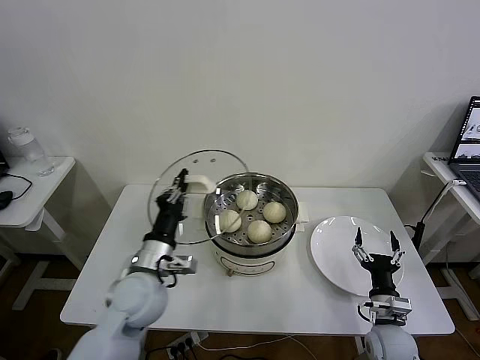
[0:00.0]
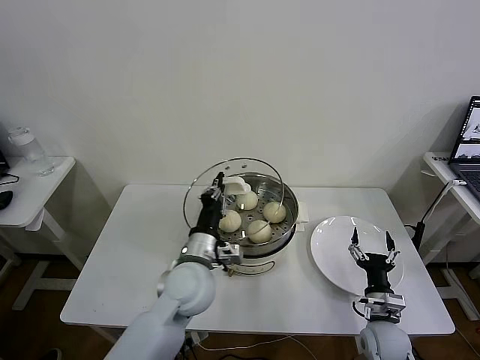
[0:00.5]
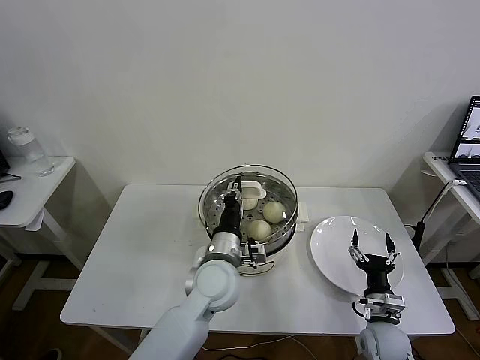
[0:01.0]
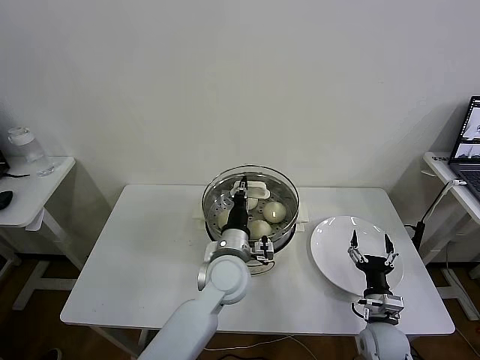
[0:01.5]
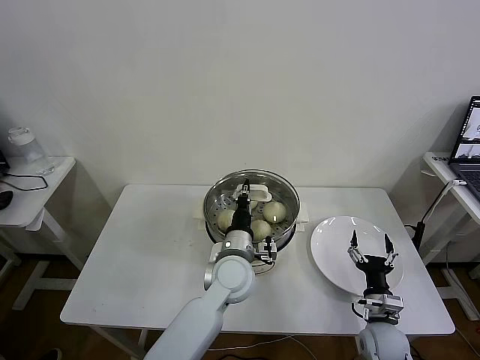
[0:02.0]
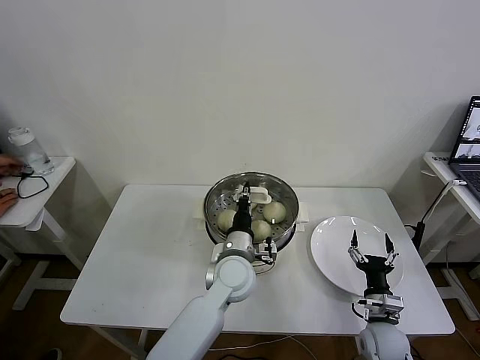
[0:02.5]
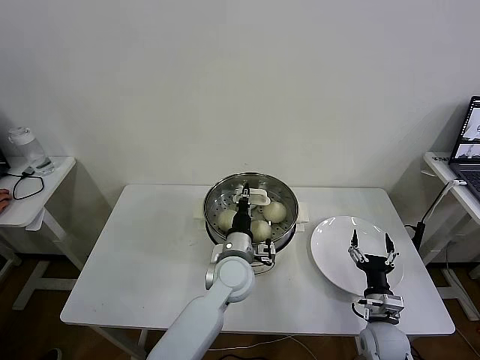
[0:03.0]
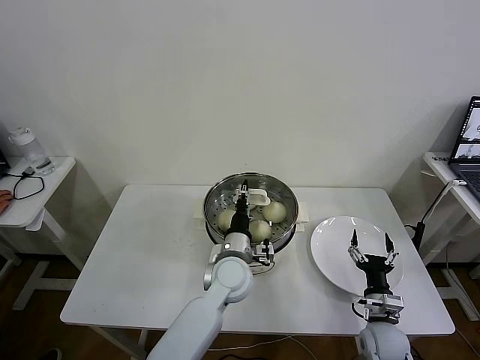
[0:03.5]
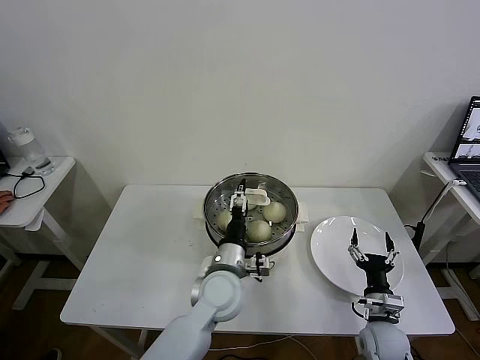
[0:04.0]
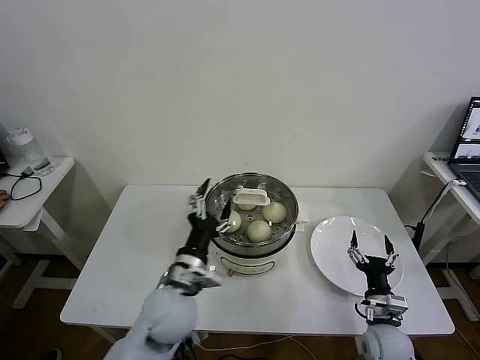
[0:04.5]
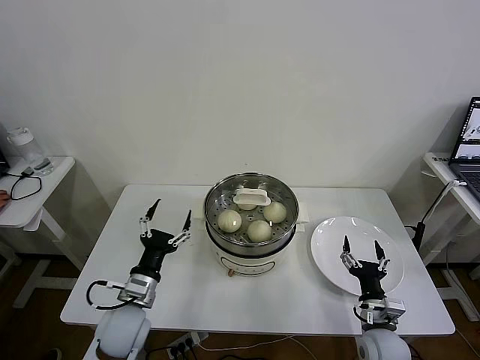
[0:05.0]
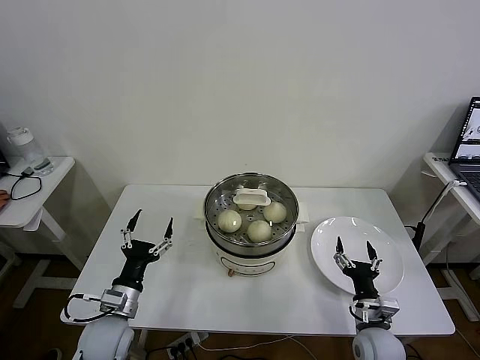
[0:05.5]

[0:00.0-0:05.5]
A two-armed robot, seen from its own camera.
Task of the whole recording: take steamed baozi put them in steamer then cover it.
Step, 0:00.0 to 0:03.5: Place the pot lid on the steamer with left gripper.
0:00.0 to 0:02.0: The left gripper heads to the right, covering roughly 20 cm.
0:02.0 to 0:03.5: There are only small adjustments of the grippers.
0:03.5 to 0:05.5: The left gripper heads to the left and backward, covering some 25 cm, and opens its fingers.
